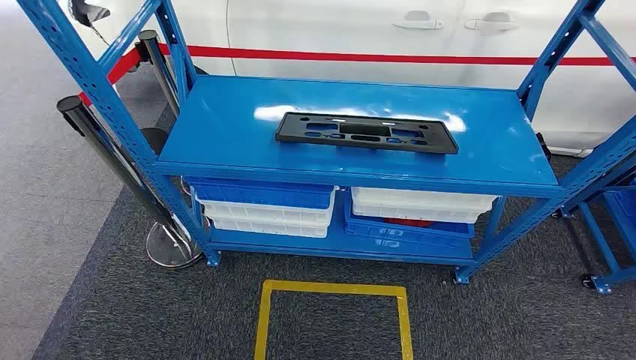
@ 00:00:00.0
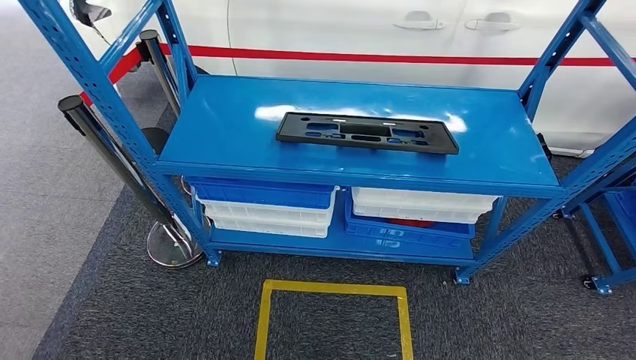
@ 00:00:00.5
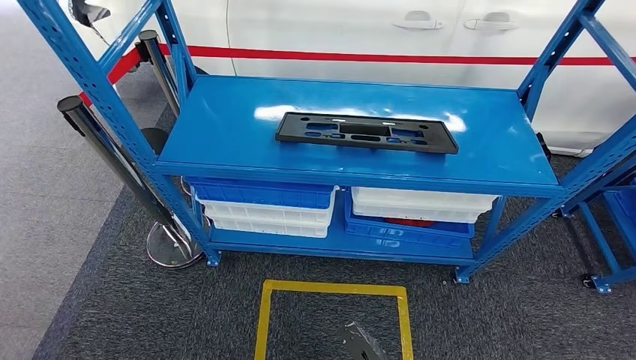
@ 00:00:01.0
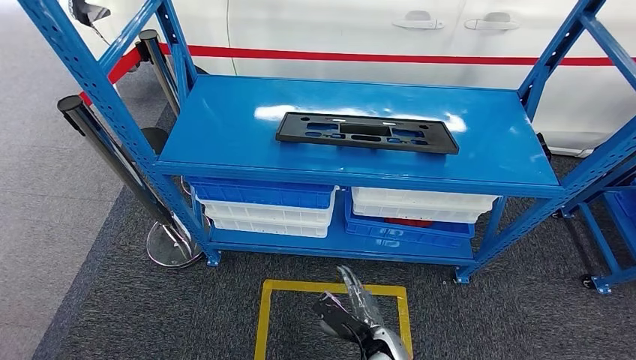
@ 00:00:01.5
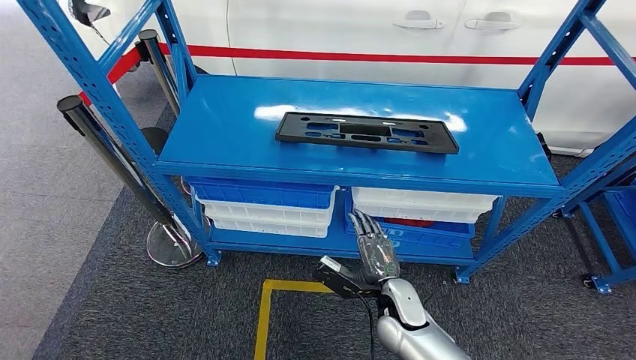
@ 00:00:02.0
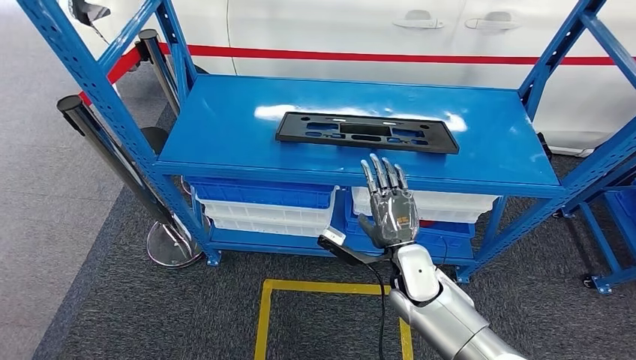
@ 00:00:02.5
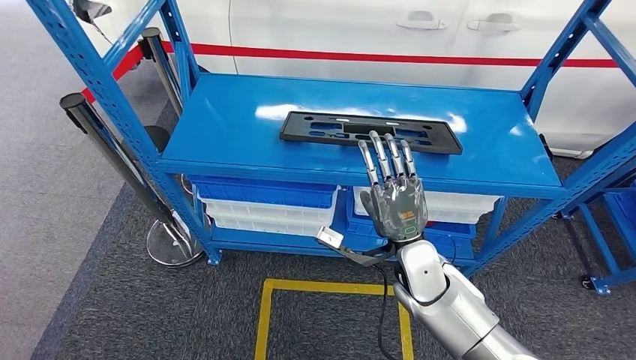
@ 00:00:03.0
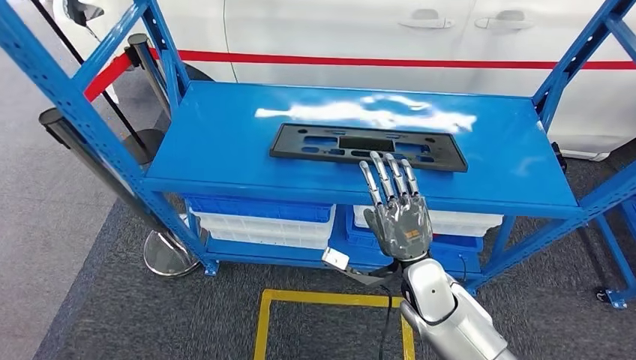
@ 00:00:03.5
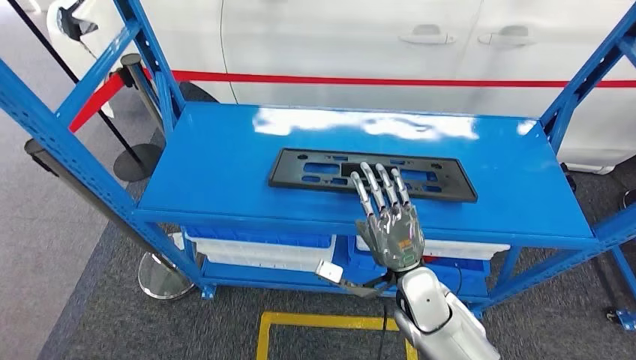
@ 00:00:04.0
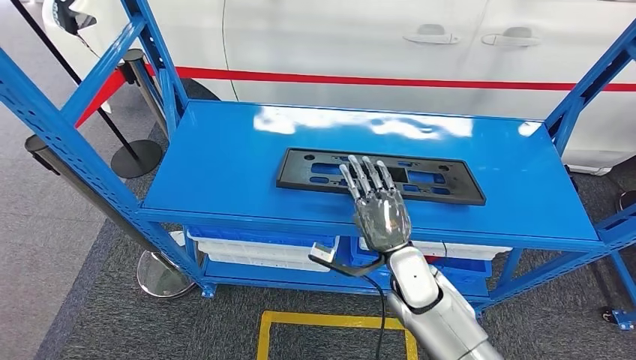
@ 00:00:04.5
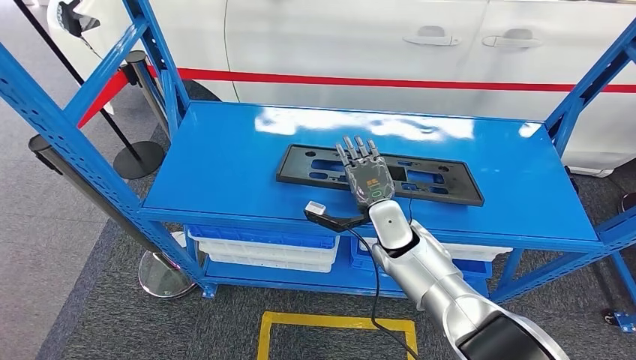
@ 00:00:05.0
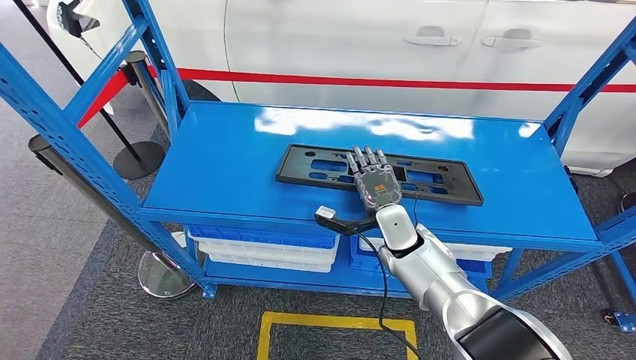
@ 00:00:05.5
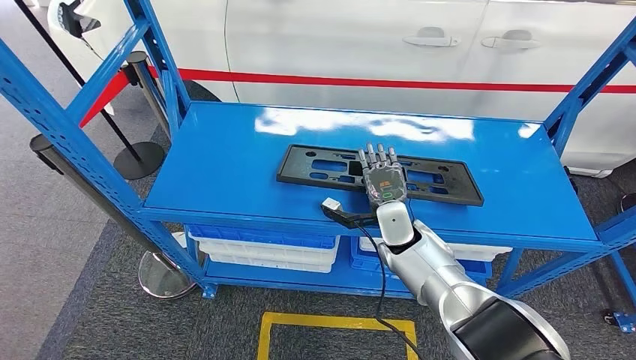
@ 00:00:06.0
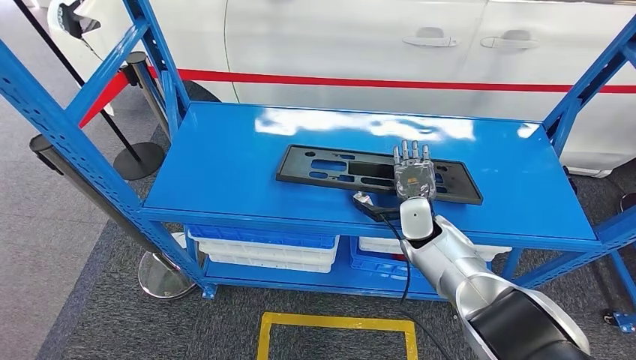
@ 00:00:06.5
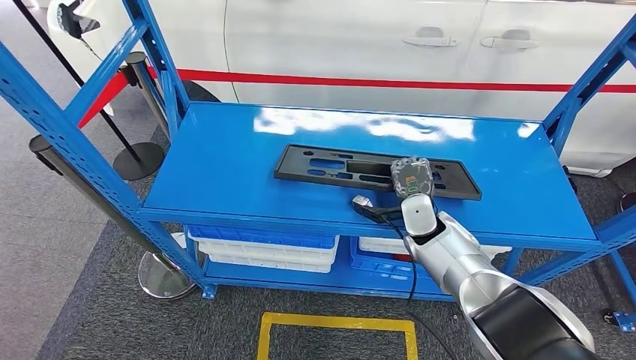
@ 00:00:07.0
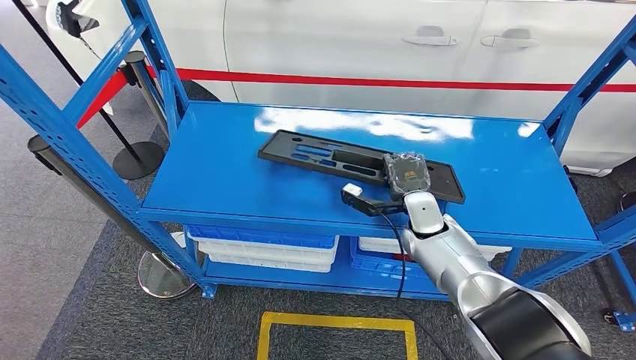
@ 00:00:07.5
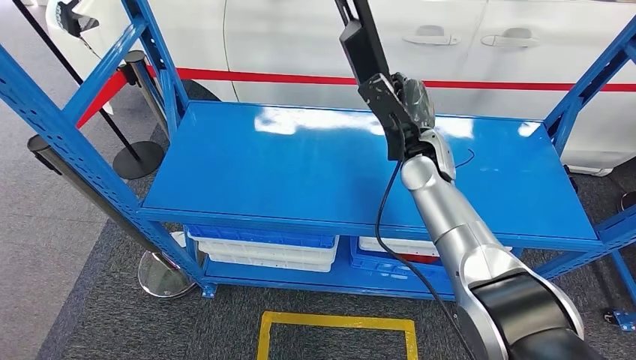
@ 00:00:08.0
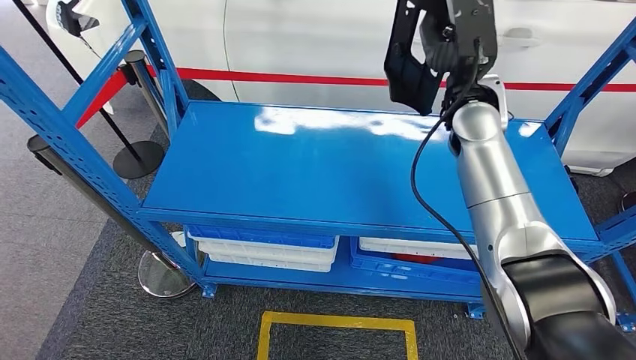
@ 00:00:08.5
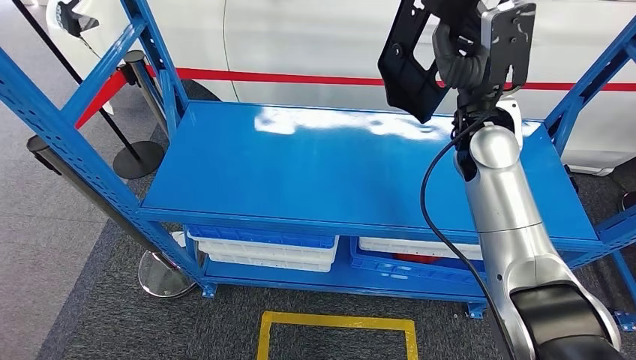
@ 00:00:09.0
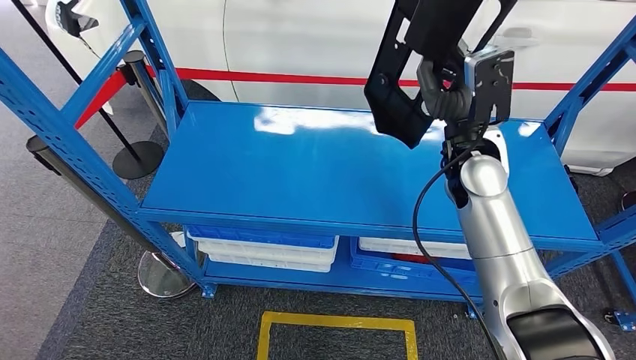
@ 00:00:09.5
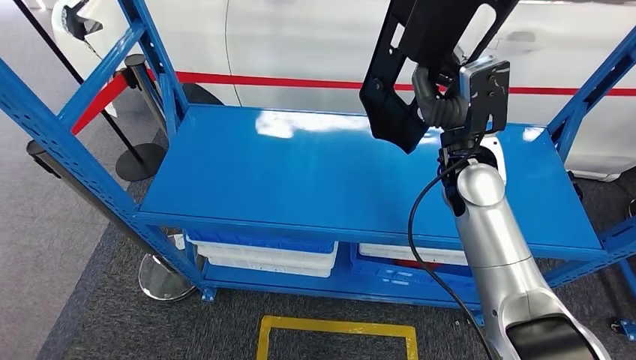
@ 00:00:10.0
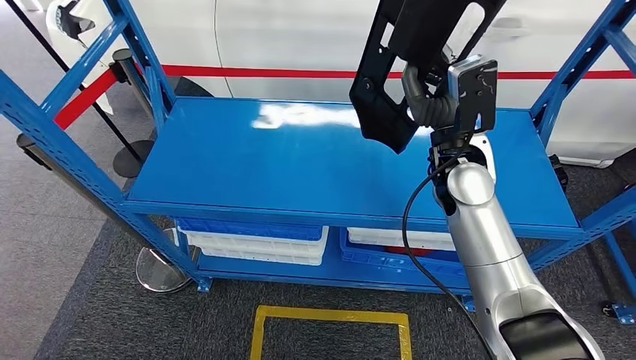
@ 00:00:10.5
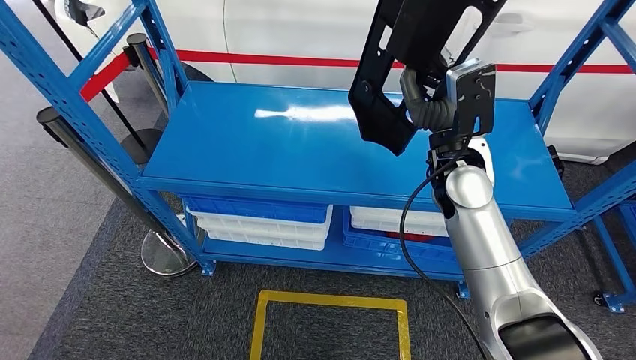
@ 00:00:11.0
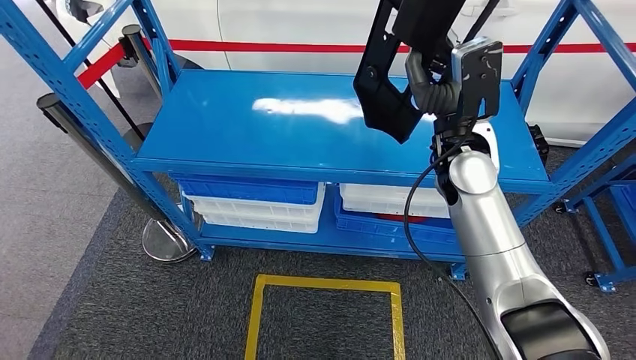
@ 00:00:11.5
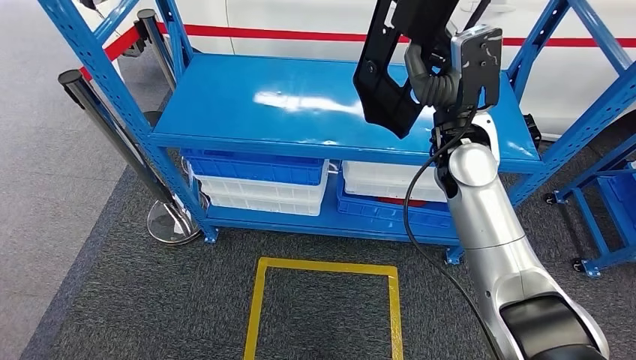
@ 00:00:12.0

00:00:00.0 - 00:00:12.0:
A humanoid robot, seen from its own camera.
Step, 00:00:00.0 - 00:00:10.0: Pick up the large material from the shelf.
00:00:06.0 - 00:00:08.0: The right hand heads upward, covering some 15 cm.

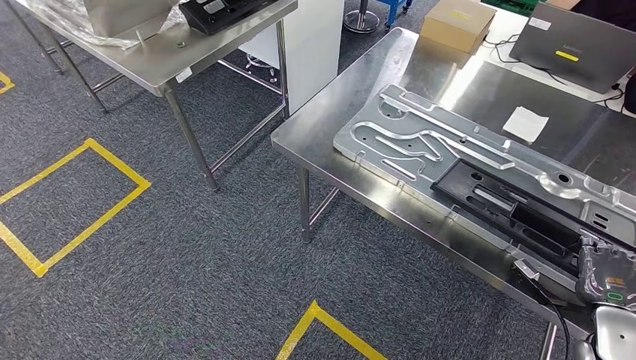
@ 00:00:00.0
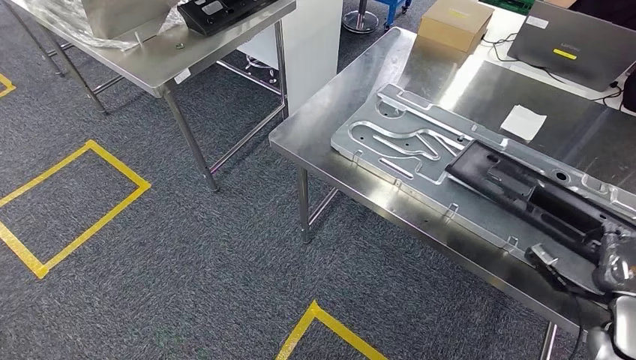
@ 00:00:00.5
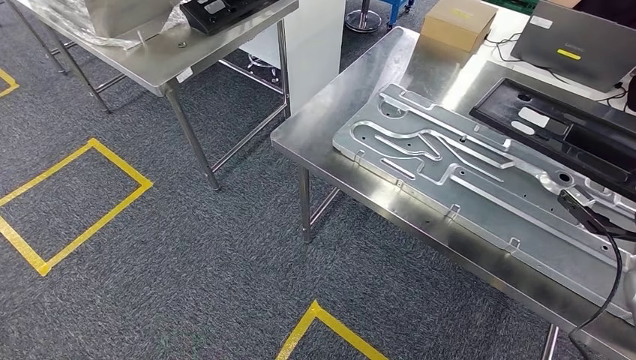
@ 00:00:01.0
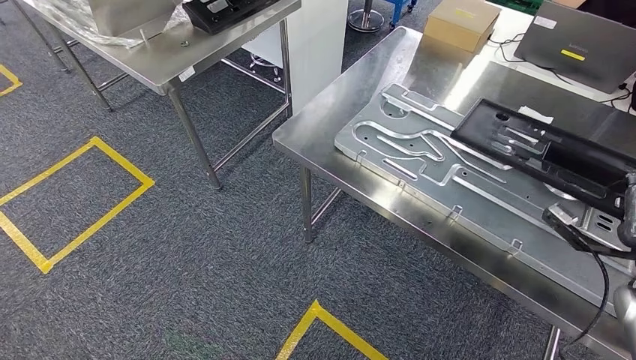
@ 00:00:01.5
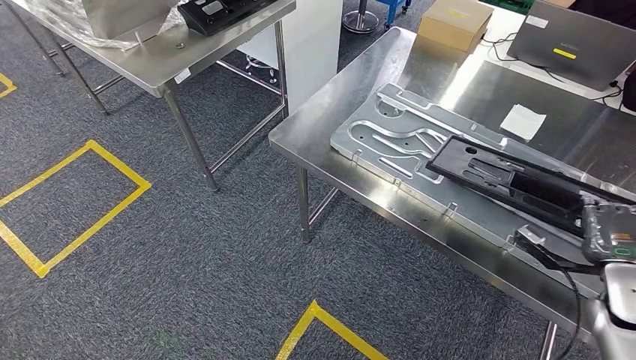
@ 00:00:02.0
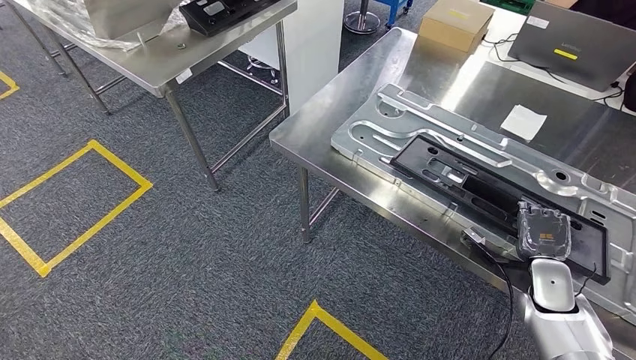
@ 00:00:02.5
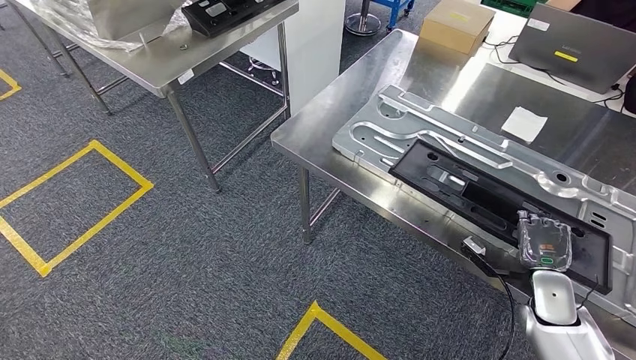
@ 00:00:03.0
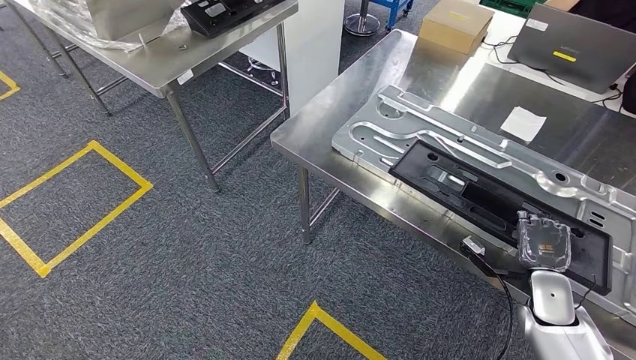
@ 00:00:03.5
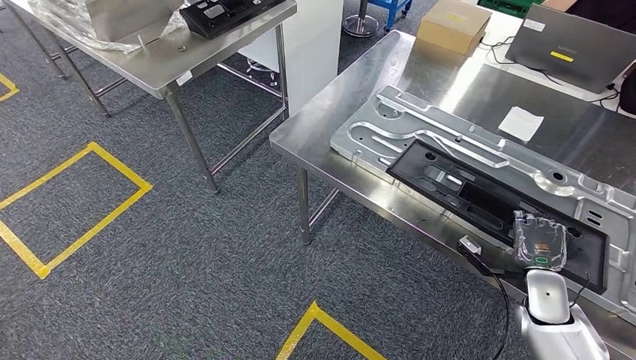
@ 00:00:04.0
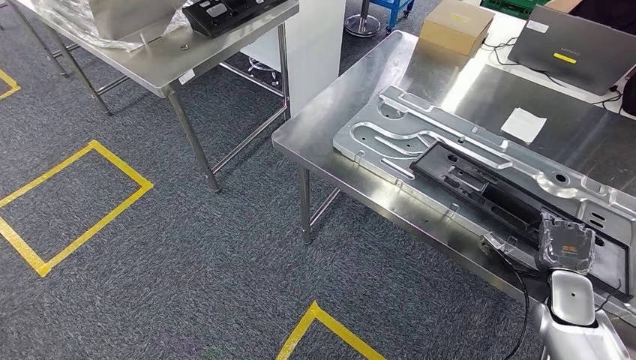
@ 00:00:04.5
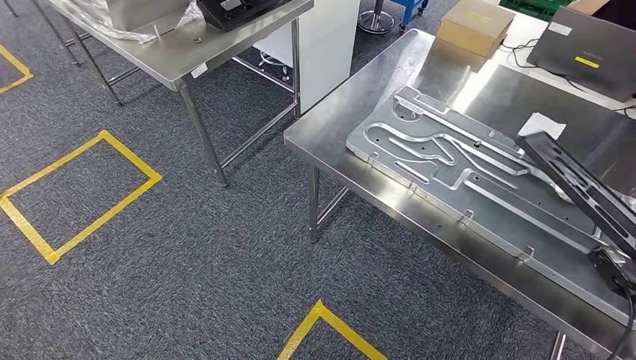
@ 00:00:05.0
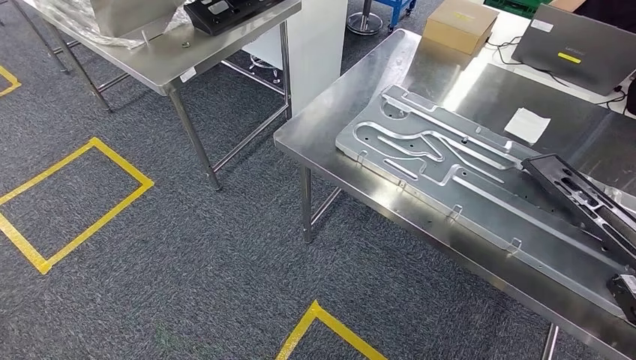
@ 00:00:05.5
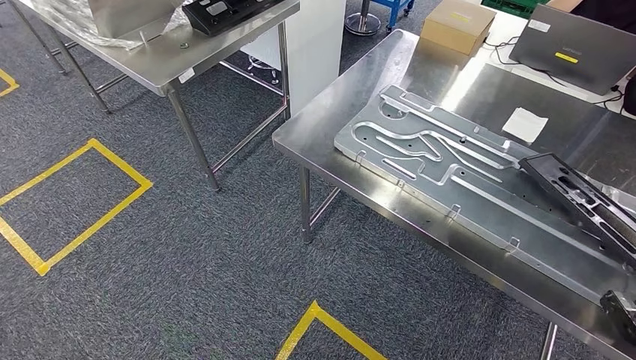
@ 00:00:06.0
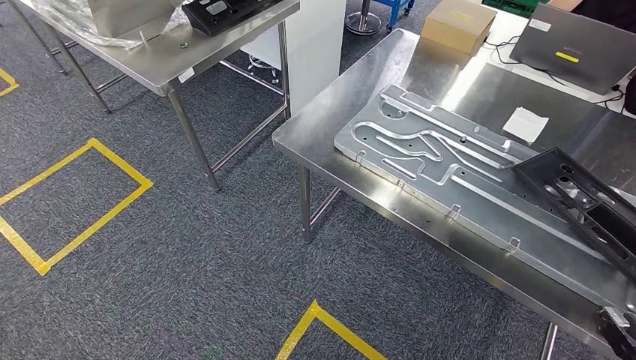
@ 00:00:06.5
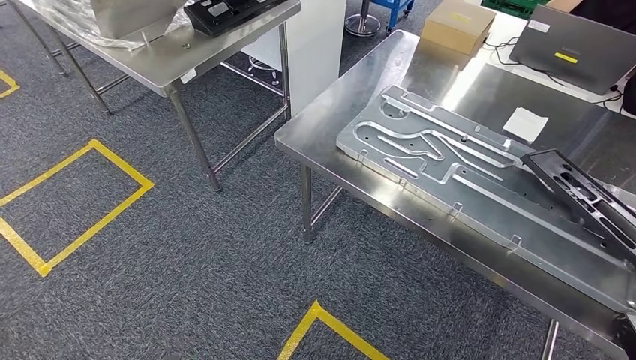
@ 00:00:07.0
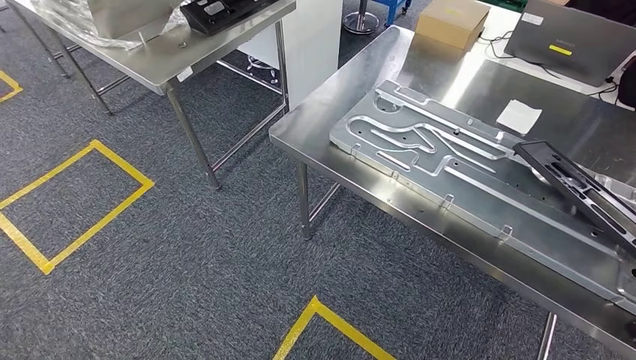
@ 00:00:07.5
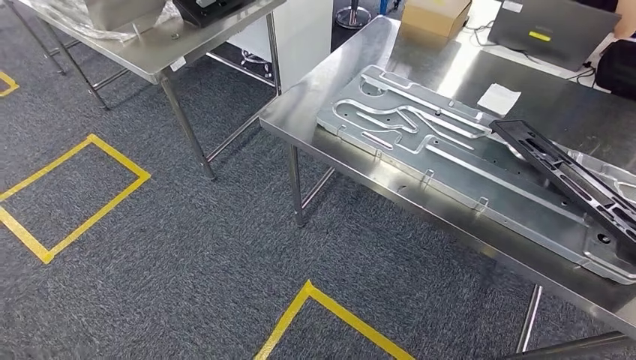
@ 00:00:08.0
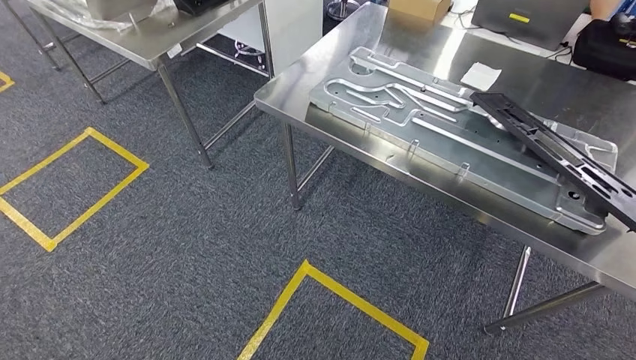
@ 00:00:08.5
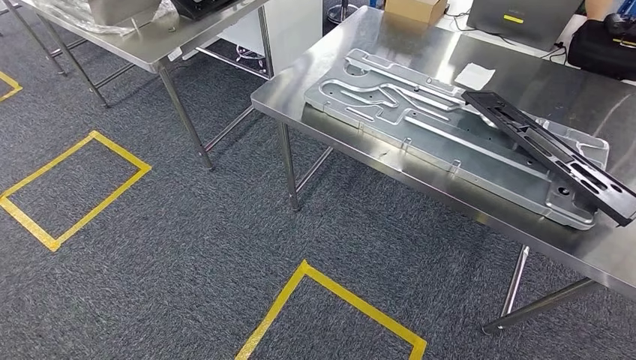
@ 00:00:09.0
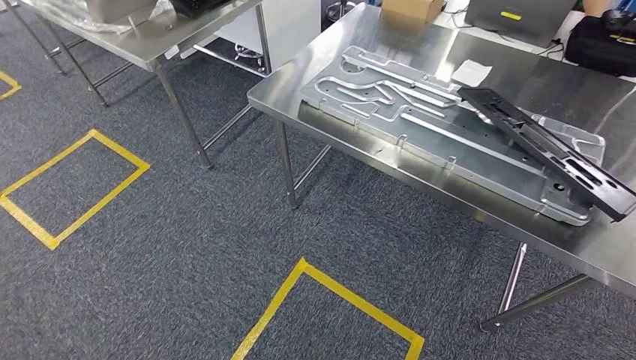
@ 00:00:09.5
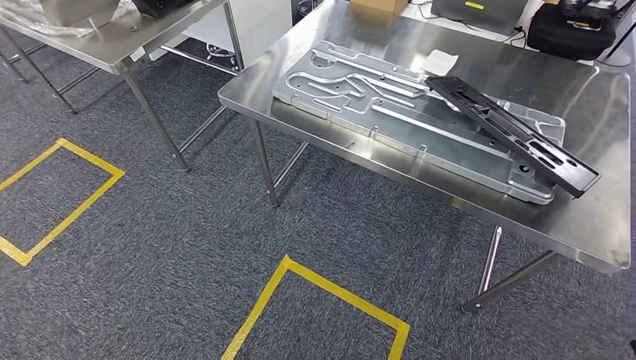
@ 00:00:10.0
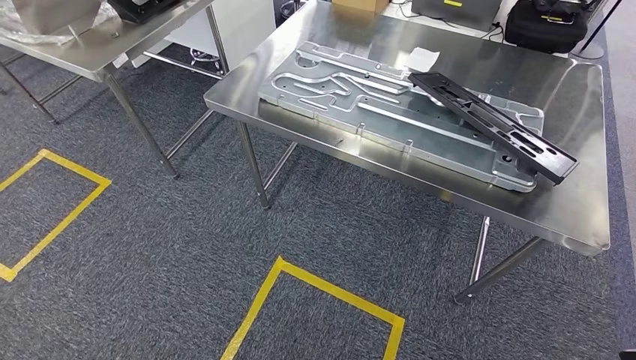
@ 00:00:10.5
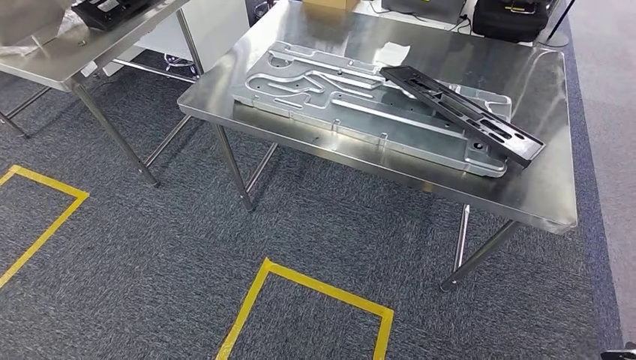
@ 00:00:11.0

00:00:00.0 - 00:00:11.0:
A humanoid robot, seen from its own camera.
Step, 00:00:01.5 - 00:00:09.0: Insert the large material into the corresponding slot on the workbench.
00:00:00.0 - 00:00:02.0: The right hand moves upward and forward, approximately 5 cm.
00:00:02.0 - 00:00:03.5: The right hand shifts about 10 cm downward and to the left.
00:00:03.5 - 00:00:05.5: The right hand shifts some 20 cm to the right and backward.
